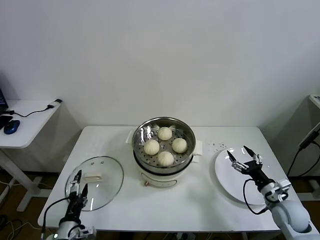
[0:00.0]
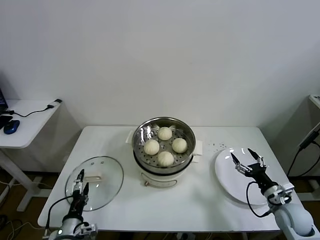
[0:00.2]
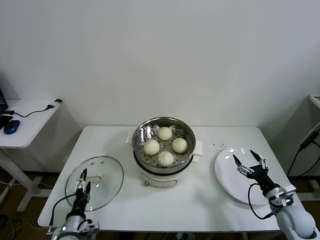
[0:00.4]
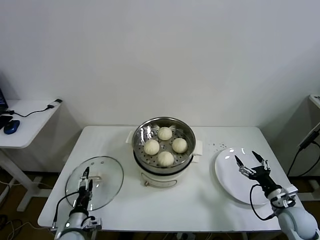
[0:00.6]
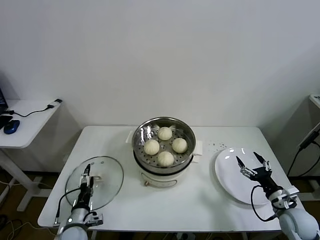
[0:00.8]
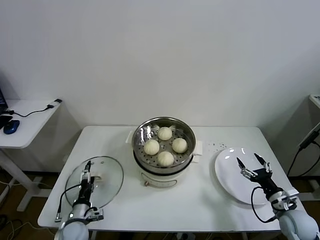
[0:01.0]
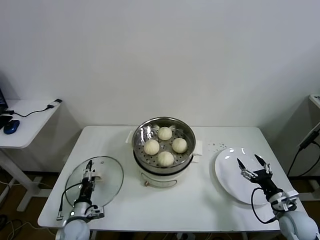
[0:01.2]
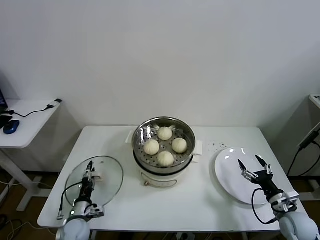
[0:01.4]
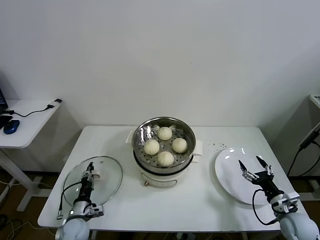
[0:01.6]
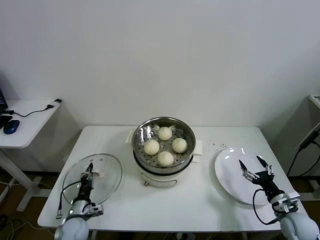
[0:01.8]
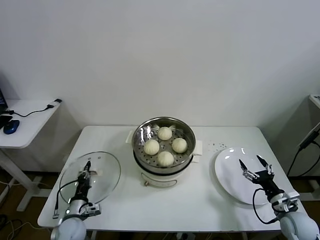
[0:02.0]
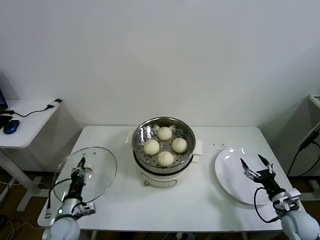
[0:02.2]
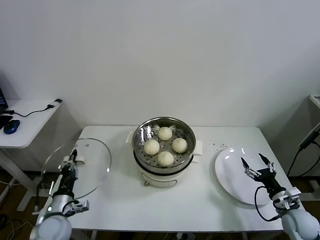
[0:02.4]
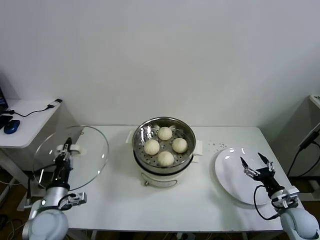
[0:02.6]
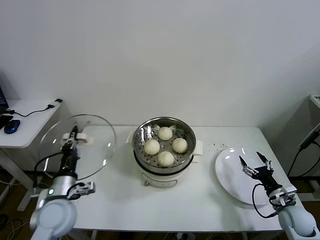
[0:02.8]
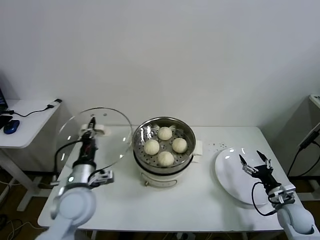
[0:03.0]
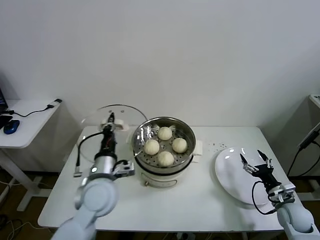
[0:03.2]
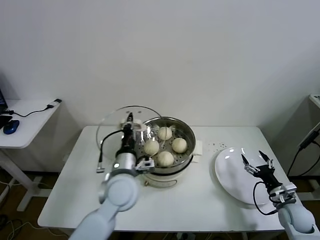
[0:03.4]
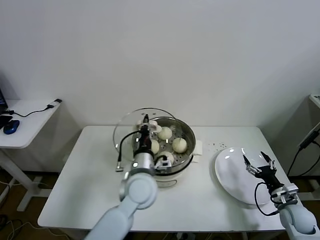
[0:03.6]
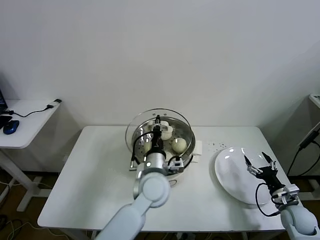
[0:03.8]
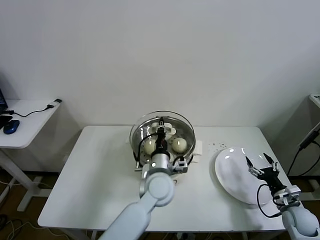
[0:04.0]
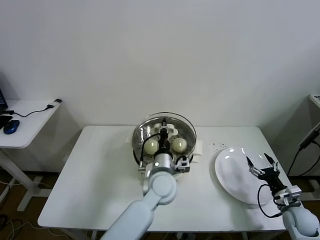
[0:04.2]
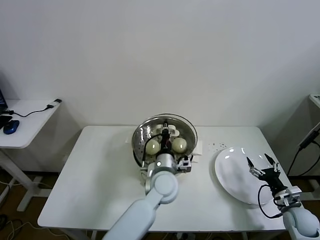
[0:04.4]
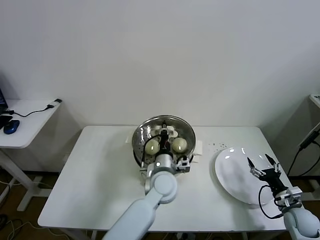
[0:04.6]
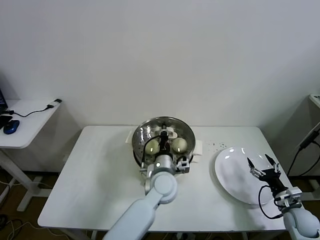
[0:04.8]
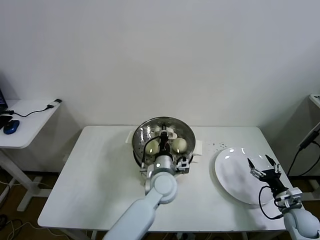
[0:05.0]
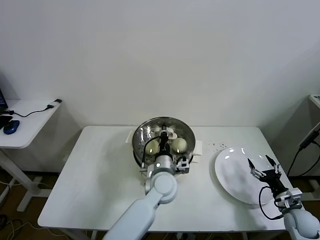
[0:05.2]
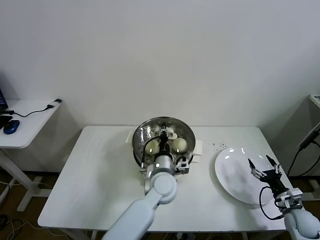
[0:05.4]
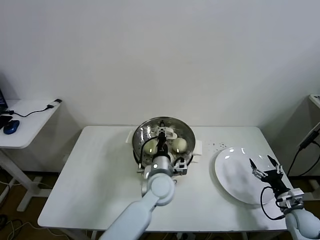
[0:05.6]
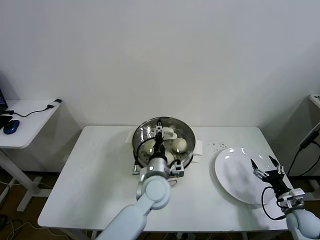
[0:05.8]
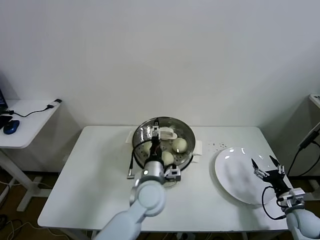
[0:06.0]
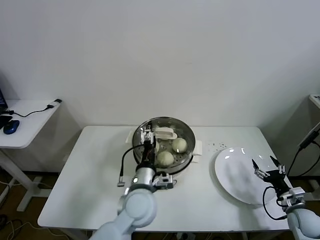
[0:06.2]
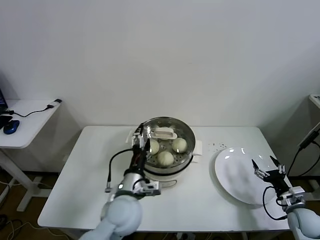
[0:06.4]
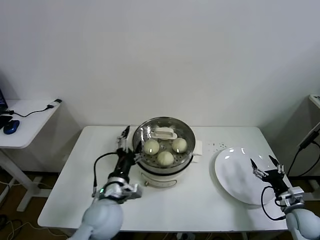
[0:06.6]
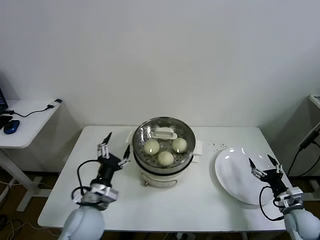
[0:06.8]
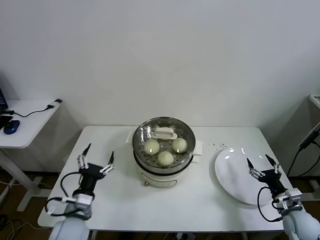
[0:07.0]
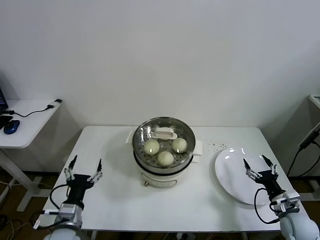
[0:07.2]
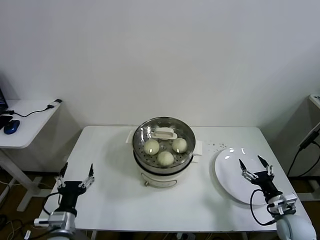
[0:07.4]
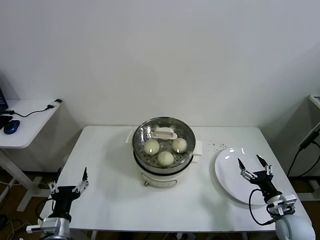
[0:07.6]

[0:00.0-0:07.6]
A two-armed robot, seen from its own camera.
Task of the whole recording: take steamed baozi put them in steamer.
Step, 0:02.0 to 0:06.0: Place the pot lid on the steamer with left gripper.
0:00.0 to 0:01.6: The left gripper shifts roughly 15 cm forward and downward, and closes, while the right gripper changes place by some 5 cm.
0:01.6 to 0:03.0: The left gripper is displaced upward by about 25 cm, and closes its fingers.
0:03.0 to 0:04.6: The left gripper travels to the right by approximately 25 cm.
0:04.6 to 0:06.0: The left gripper opens up.
0:06.0 to 0:07.6: The left gripper is displaced to the left and backward by some 30 cm; the right gripper shifts approximately 5 cm to the left.
